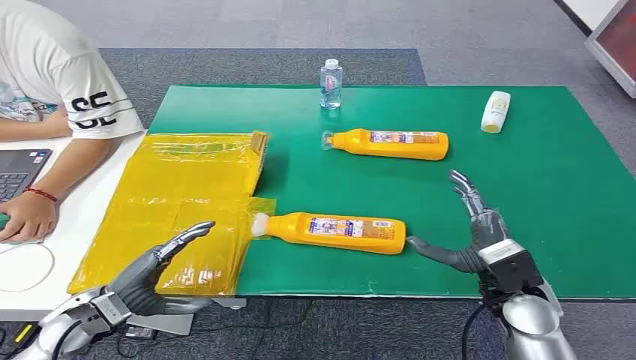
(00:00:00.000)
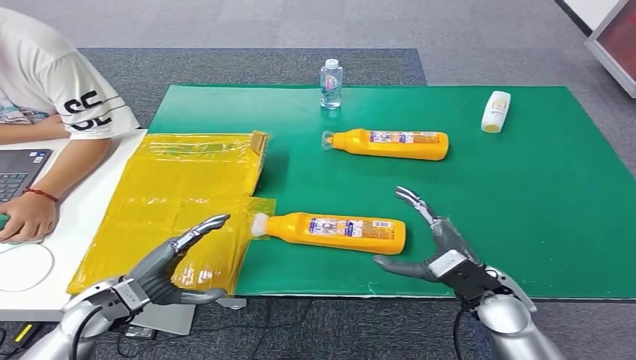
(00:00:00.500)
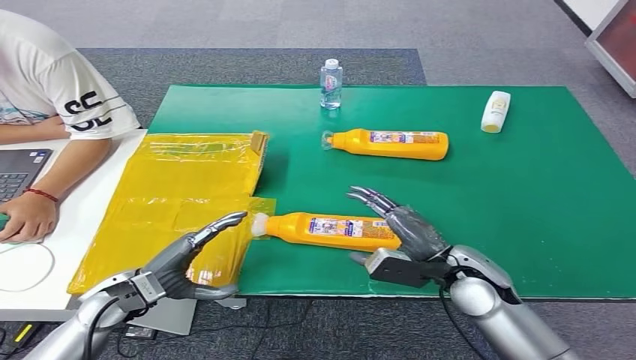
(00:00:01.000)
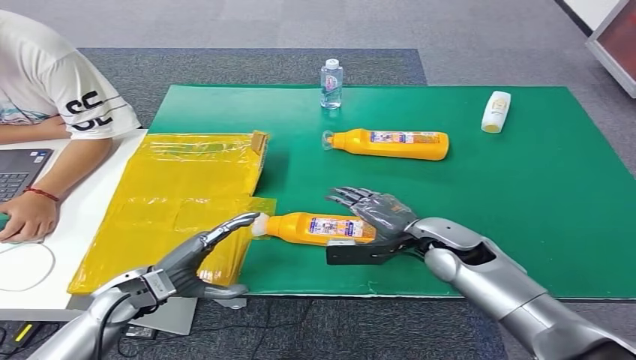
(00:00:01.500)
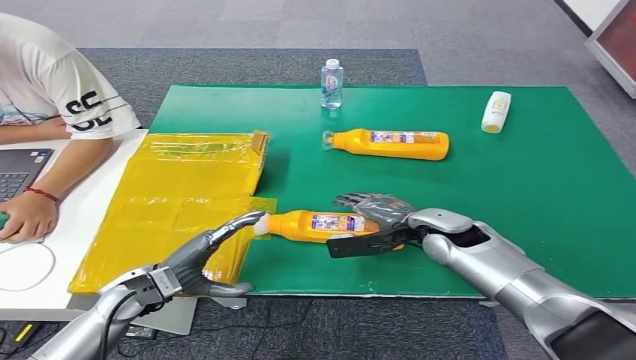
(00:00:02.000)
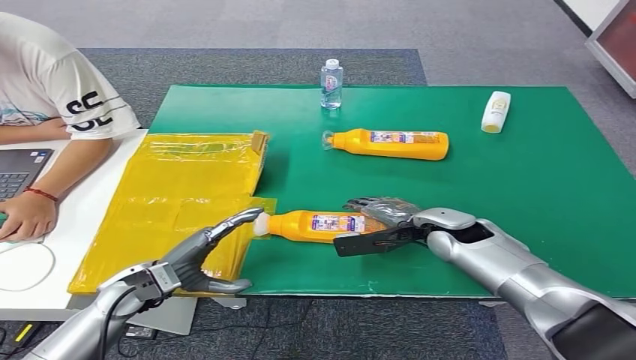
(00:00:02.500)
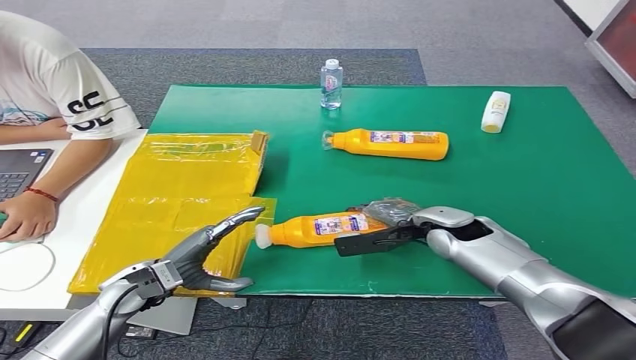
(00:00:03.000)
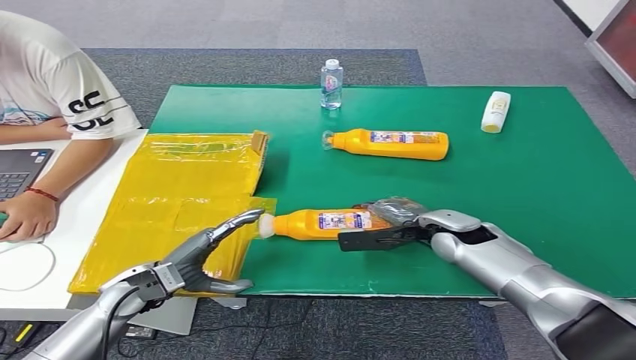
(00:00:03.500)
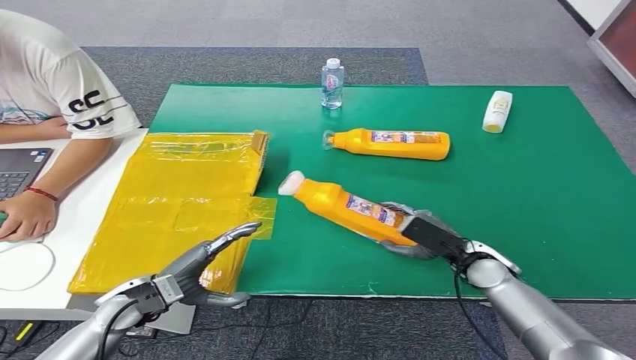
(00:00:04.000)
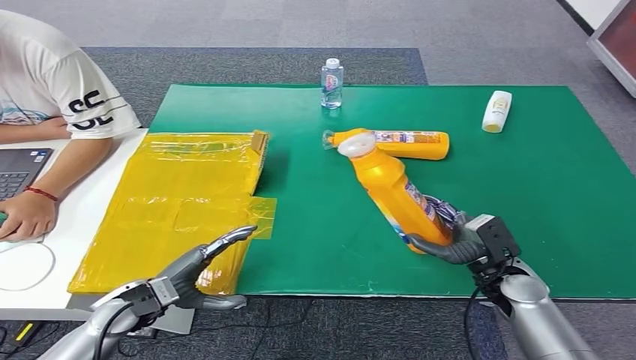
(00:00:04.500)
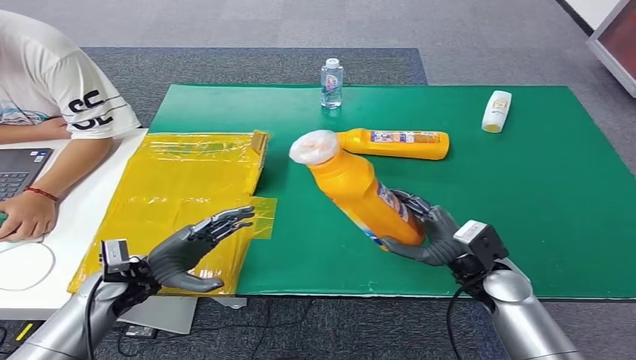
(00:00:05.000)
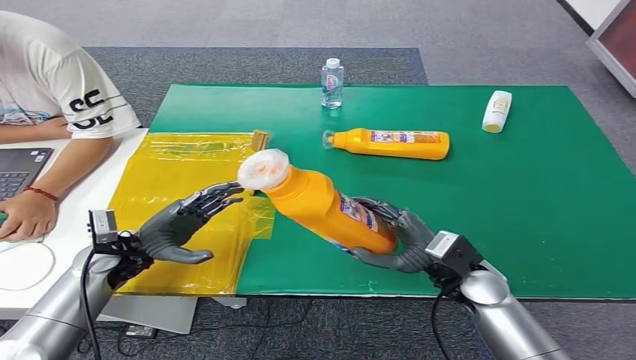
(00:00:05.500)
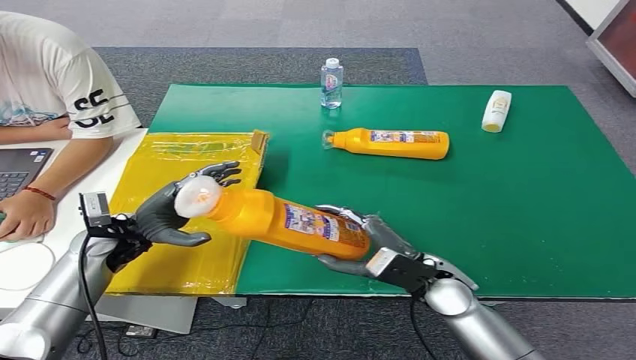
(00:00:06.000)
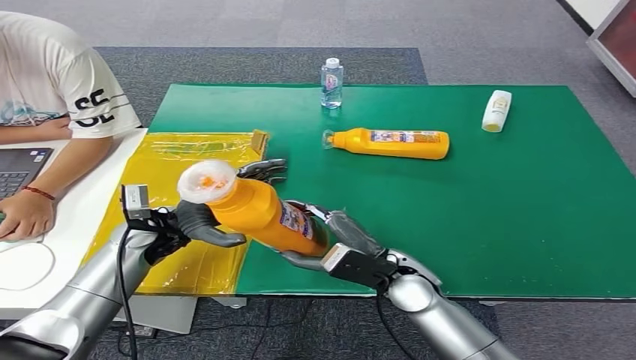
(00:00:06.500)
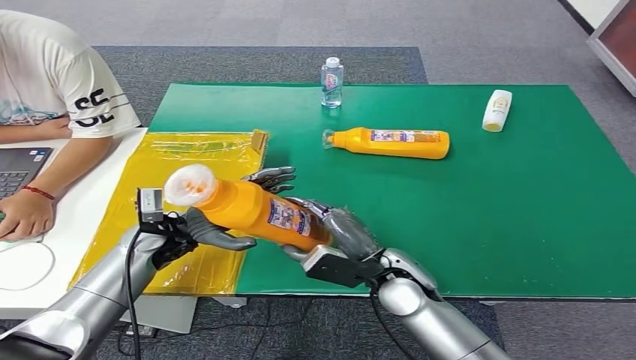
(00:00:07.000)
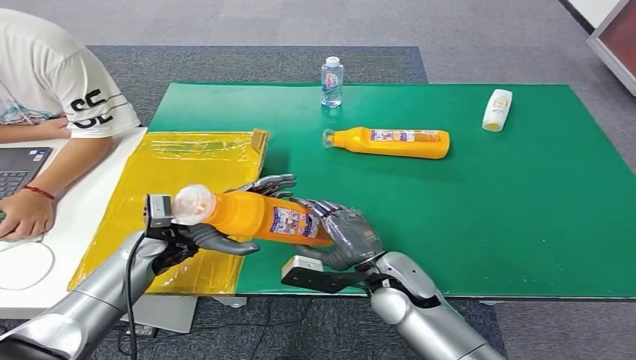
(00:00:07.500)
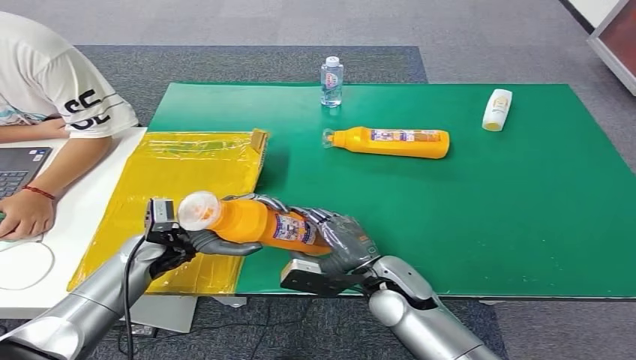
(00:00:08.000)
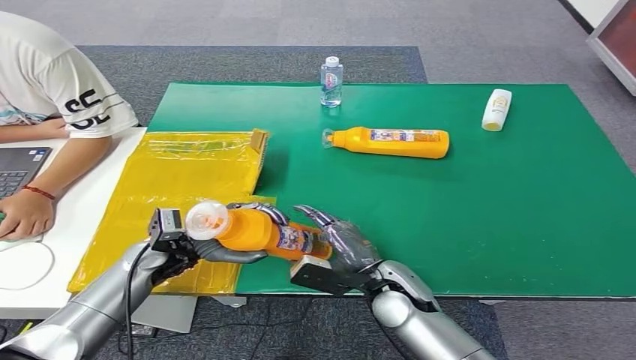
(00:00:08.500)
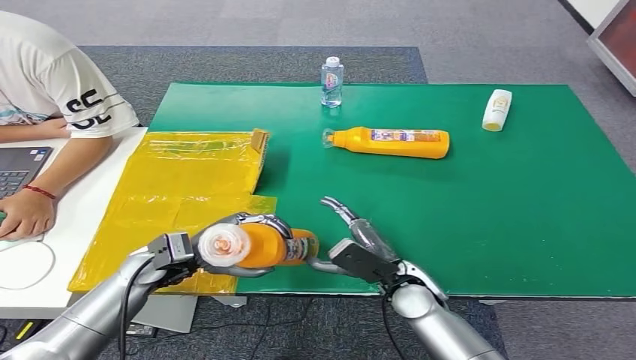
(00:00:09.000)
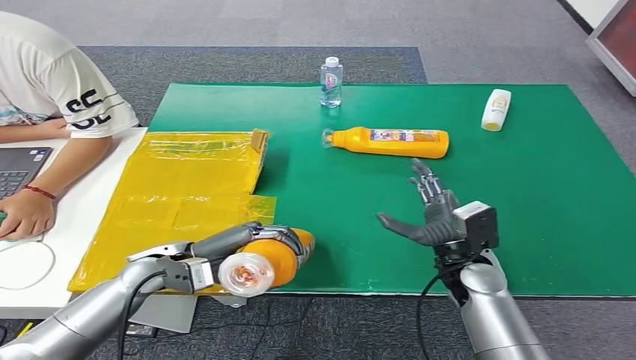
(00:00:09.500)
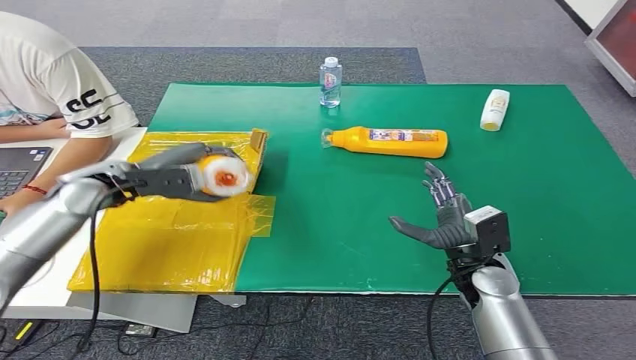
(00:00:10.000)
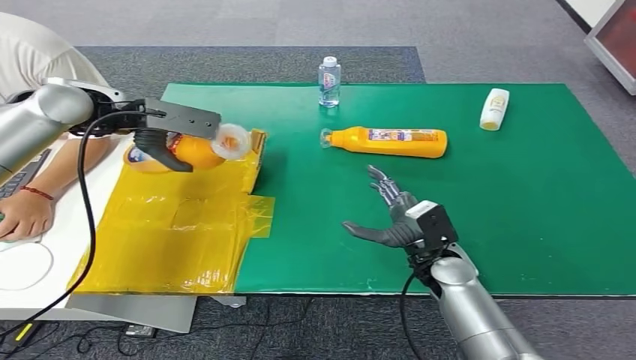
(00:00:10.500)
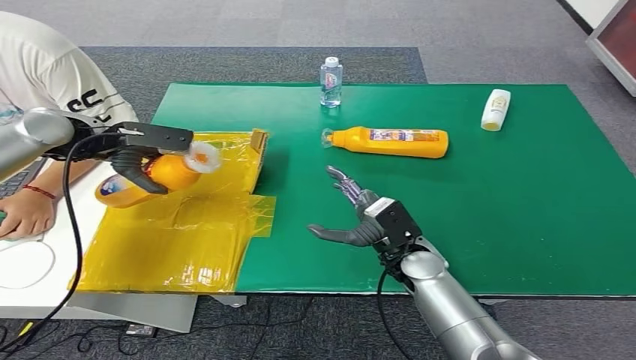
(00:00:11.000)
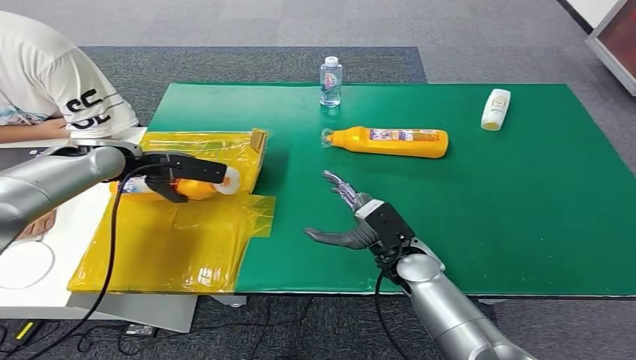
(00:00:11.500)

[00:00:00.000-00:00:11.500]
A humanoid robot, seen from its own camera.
Step, 00:00:00.000 to 00:00:06.000: Pick up the bottle from the table.
00:00:02.000 to 00:00:04.000: The right hand goes some 10 cm to the right and downward.
00:00:06.000 to 00:00:07.500: The left hand is displaced to the right by some 5 cm, while the right hand goes about 5 cm to the left.
00:00:07.500 to 00:00:09.500: The right hand moves to the right, roughly 10 cm.

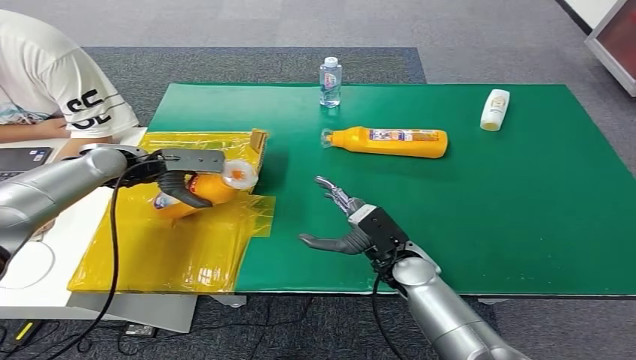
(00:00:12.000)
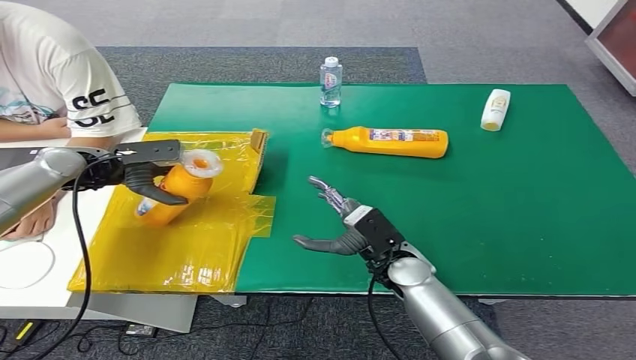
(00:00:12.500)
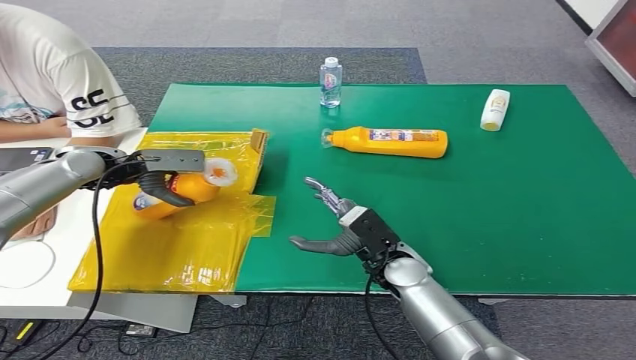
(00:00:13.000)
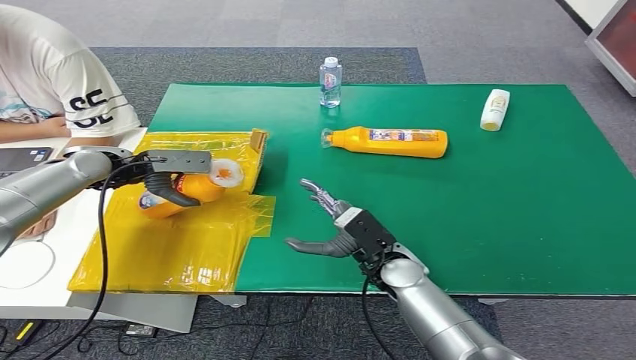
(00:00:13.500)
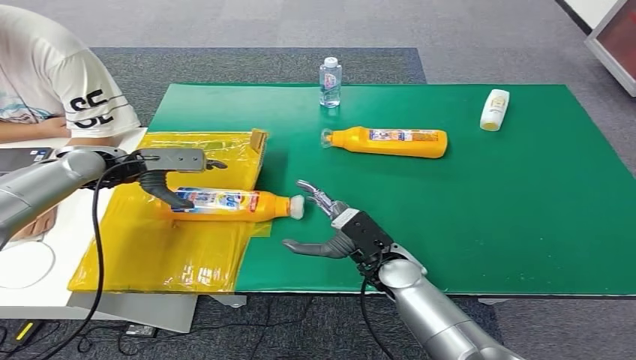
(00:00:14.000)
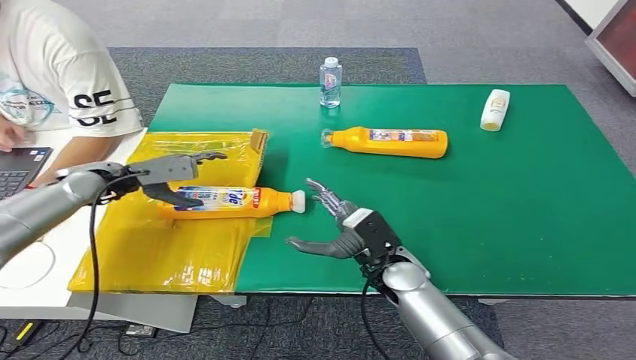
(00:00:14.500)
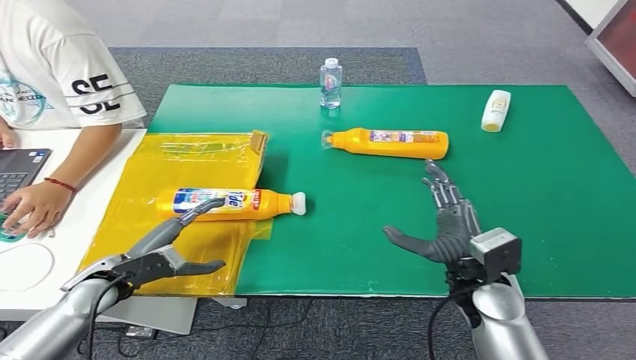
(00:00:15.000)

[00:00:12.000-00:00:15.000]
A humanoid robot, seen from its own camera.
Step, 00:00:12.000 to 00:00:15.000: Turn the bottle to the front side.
00:00:12.000 to 00:00:13.500: The hands move only a little.
